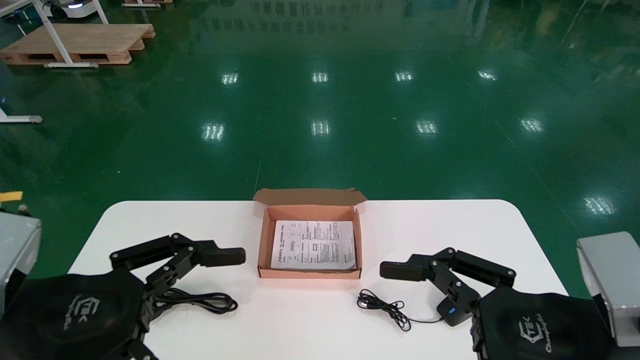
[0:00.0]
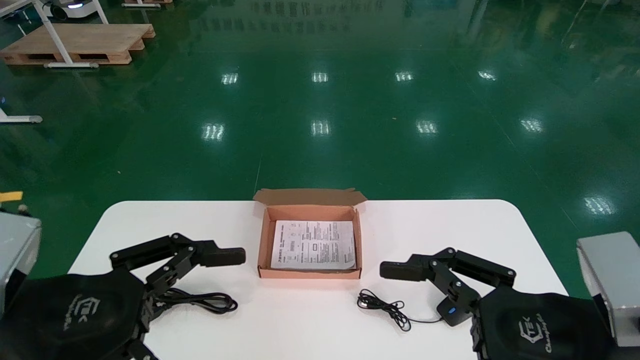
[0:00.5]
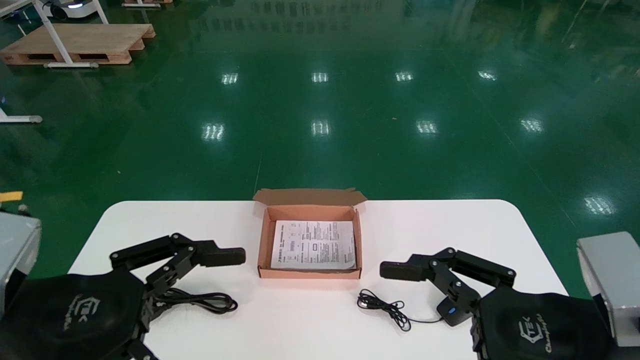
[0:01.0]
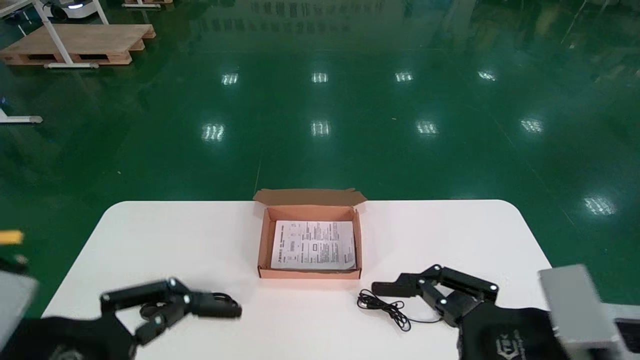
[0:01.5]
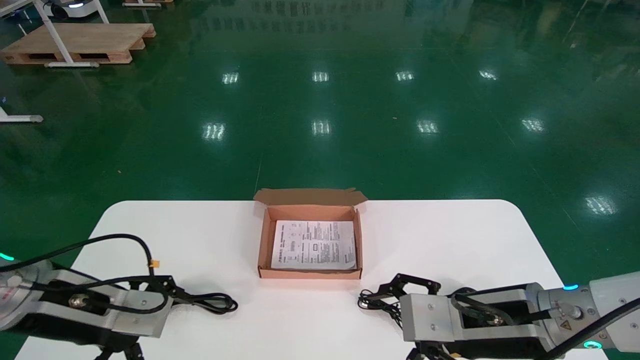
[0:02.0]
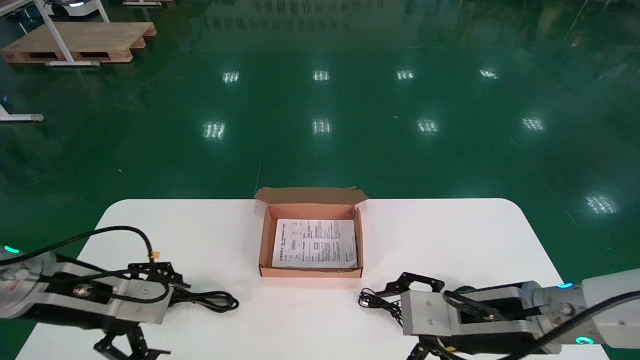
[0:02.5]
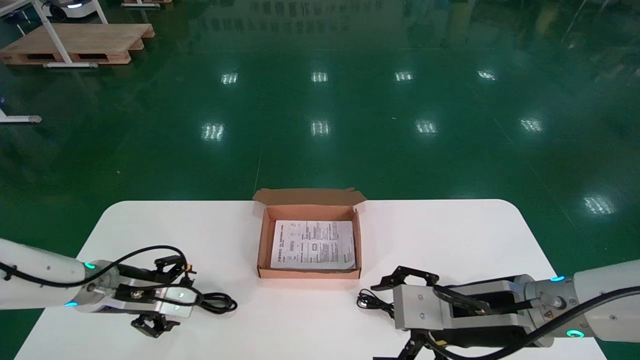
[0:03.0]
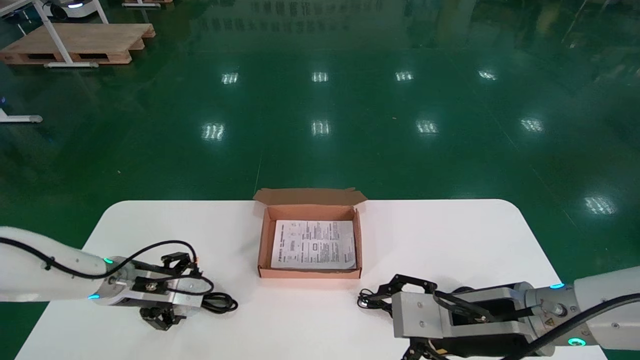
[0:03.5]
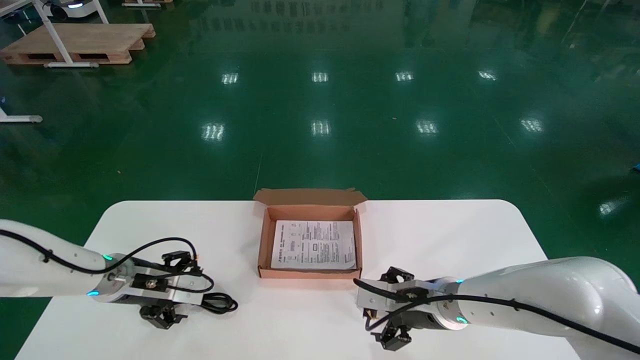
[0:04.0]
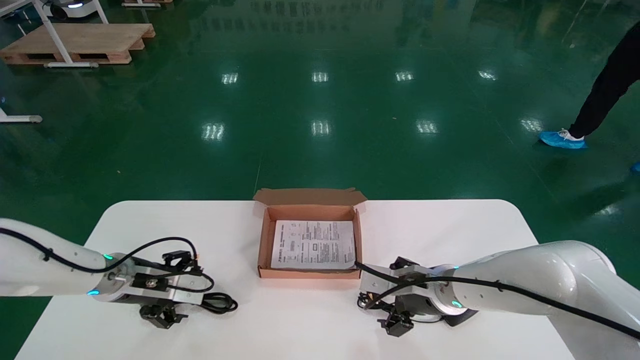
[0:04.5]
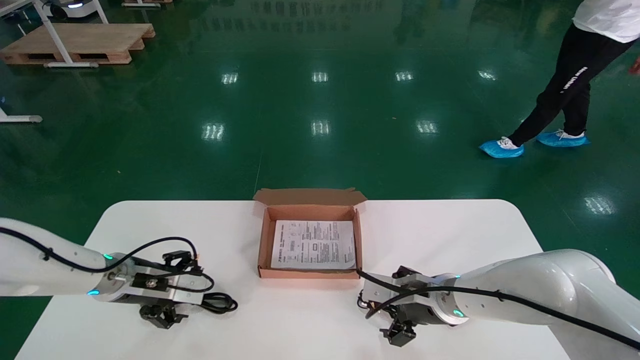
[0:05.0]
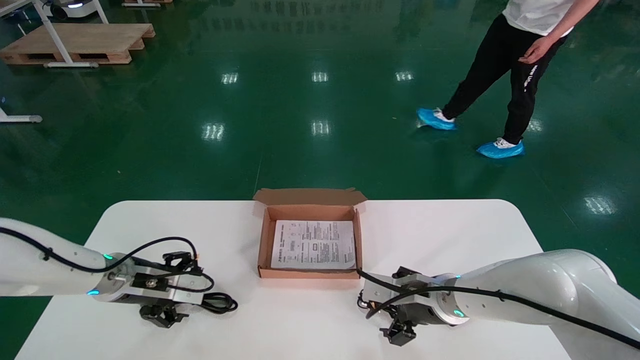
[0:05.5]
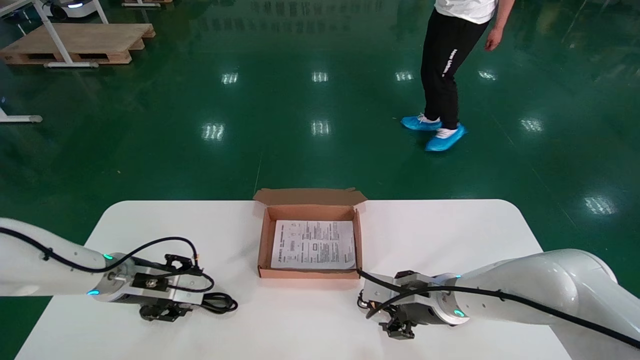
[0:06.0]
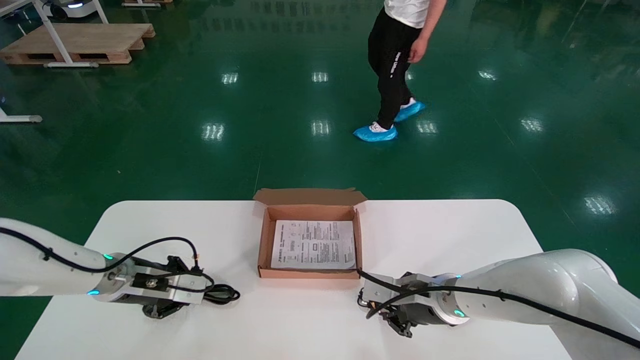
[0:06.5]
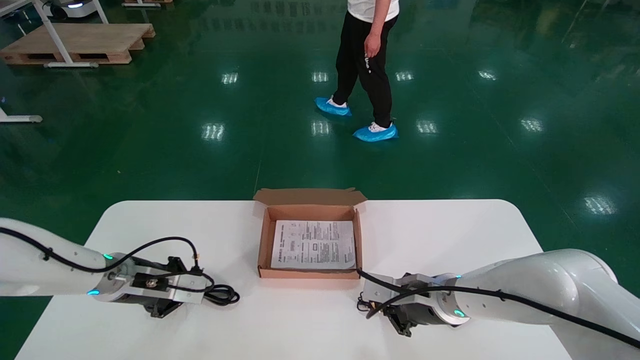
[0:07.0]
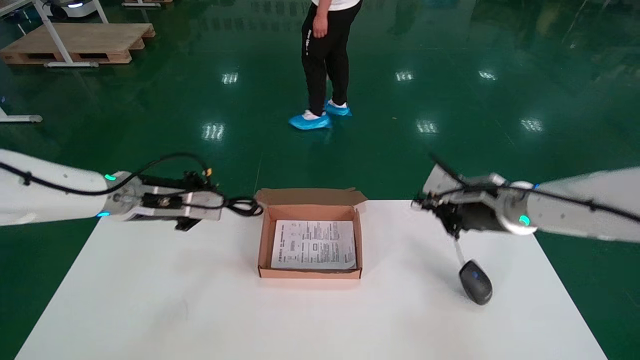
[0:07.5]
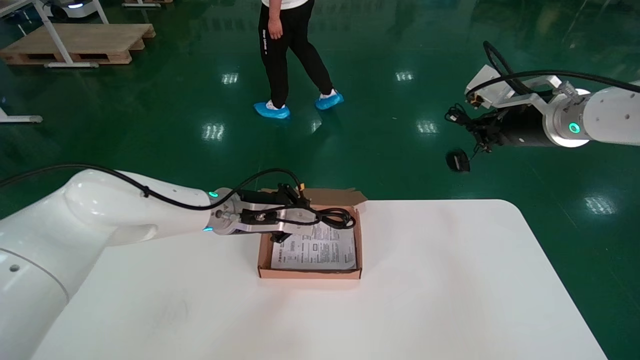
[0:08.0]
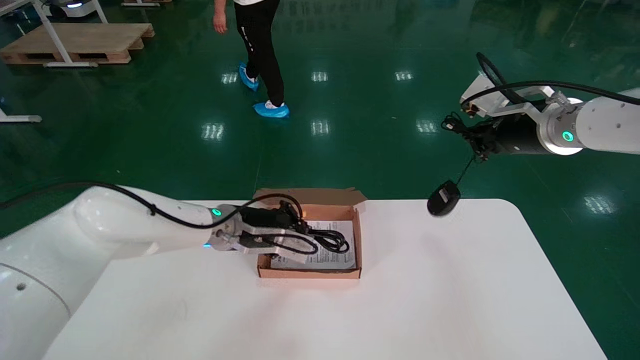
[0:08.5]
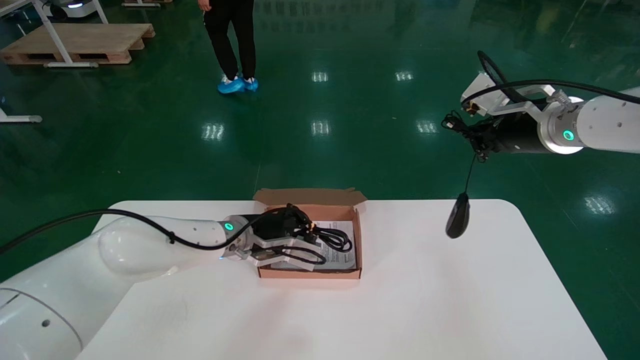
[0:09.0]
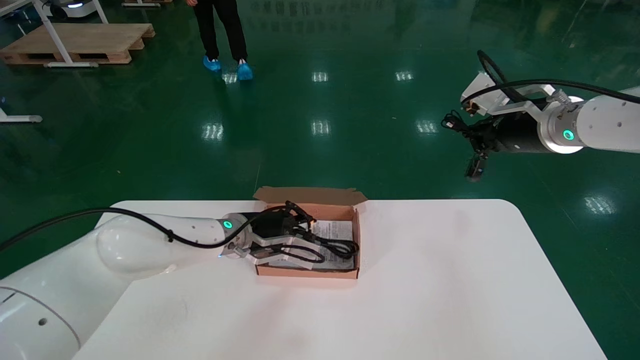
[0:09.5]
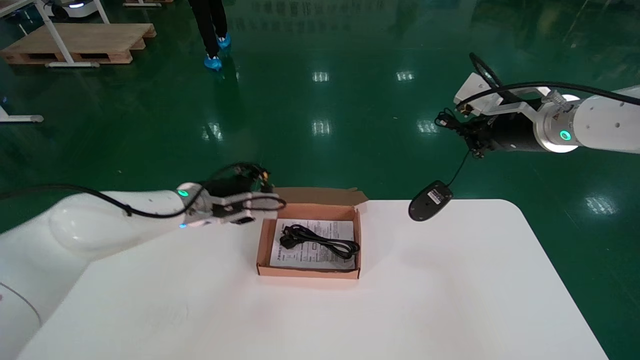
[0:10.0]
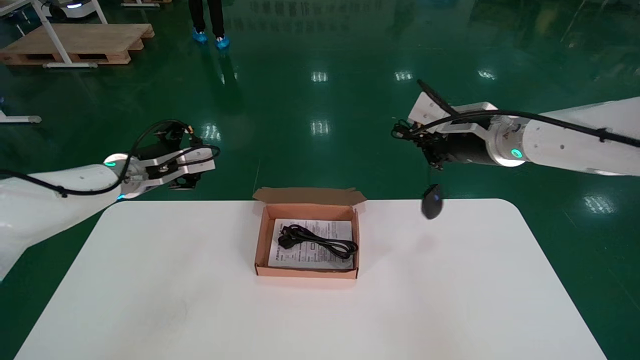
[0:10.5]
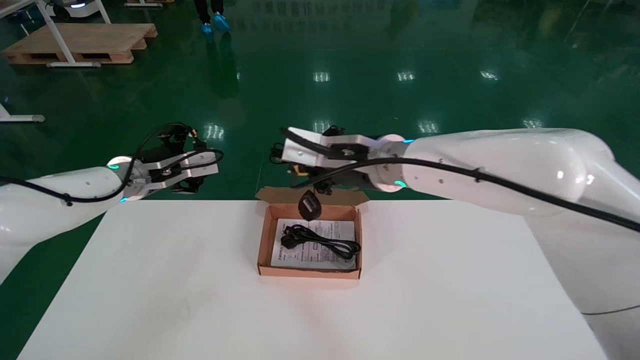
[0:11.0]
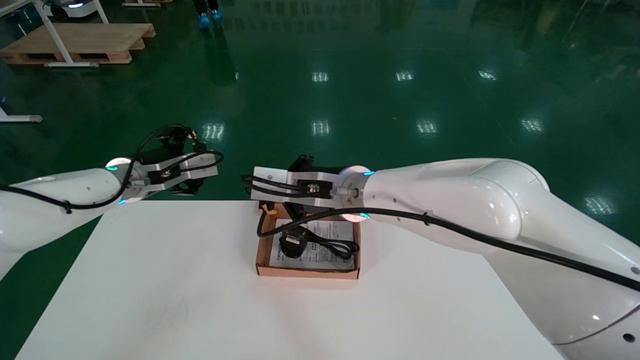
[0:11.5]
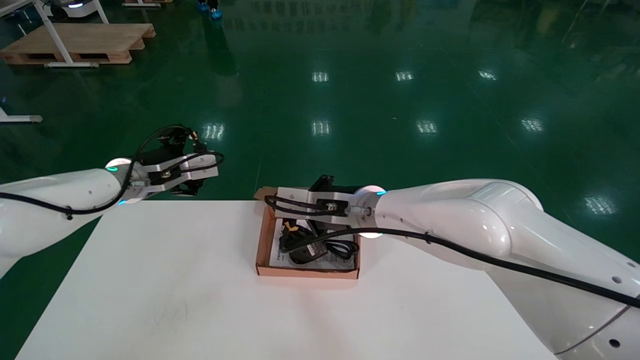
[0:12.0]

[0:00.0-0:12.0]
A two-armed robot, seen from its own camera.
Step, 0:01.0 to 0:07.0: Simultaneously pick up the mouse and power cord from the accessory packaging area.
0:00.0 to 0:02.0: The two grippers go approximately 10 cm forward.
0:02.0 to 0:04.0: The two grippers go approximately 15 cm forward and downward.
0:04.0 to 0:06.0: There are only small adjustments of the grippers.
0:06.0 to 0:08.0: The left gripper is displaced to the right and upward by roughly 20 cm, and closes up. Meanwhile the right gripper goes approximately 30 cm upward and to the right, and closes its fingers.
0:08.0 to 0:10.0: The left gripper goes roughly 5 cm to the left, and opens its fingers.
0:10.0 to 0:12.0: The left gripper goes approximately 10 cm to the left, and opens its fingers; the right gripper moves to the left and downward, roughly 25 cm.

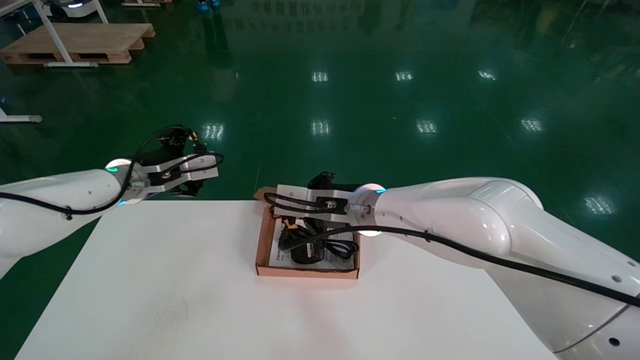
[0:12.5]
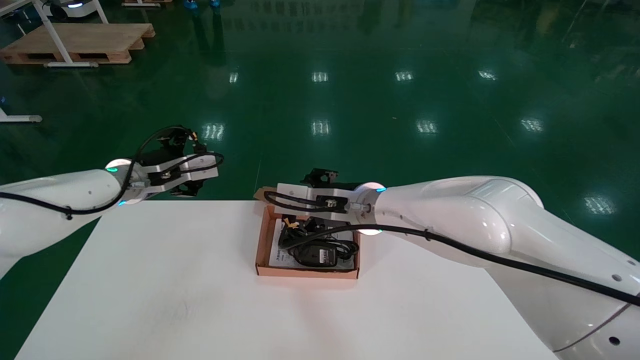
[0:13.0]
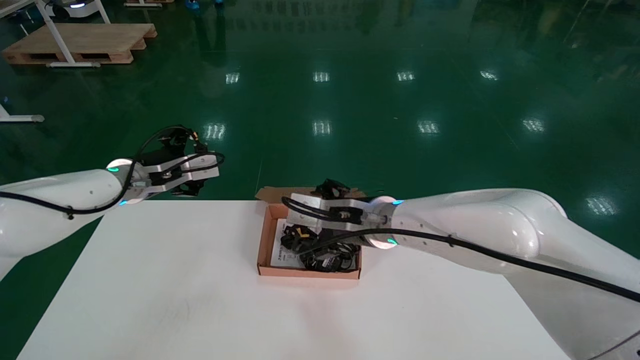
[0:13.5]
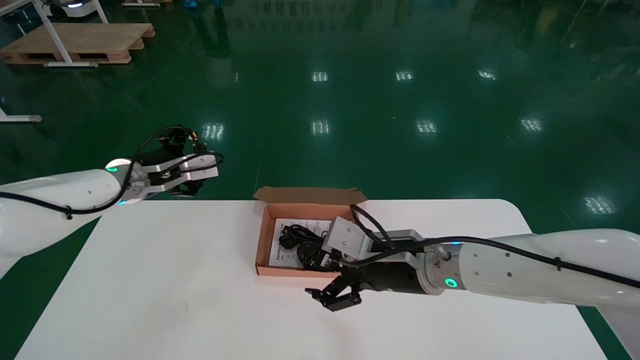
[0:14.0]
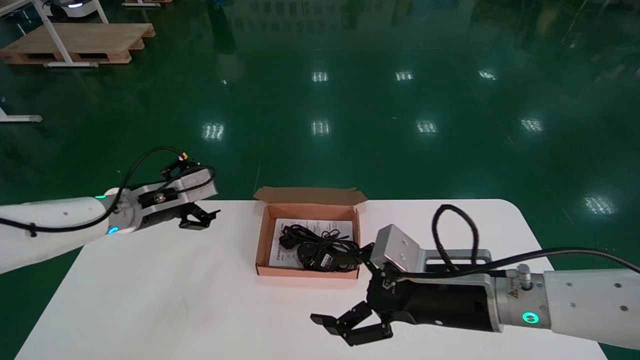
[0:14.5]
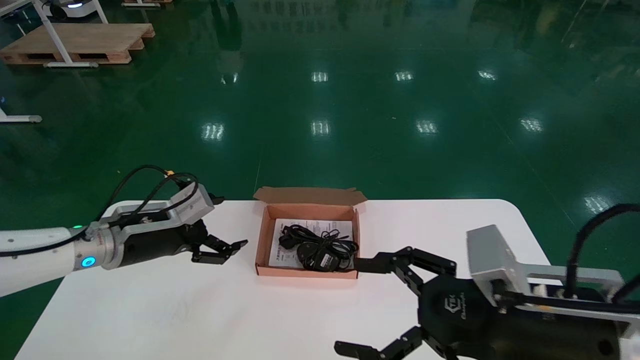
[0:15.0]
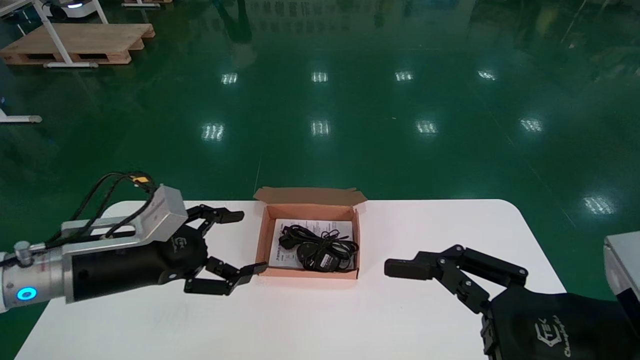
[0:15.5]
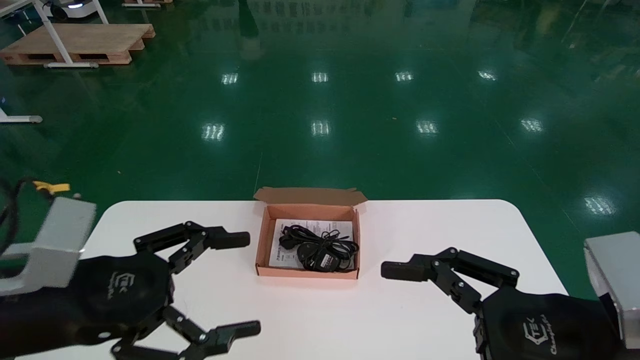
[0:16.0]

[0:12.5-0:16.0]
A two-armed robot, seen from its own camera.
0:12.5 to 0:14.5: The right gripper shifts roughly 20 cm to the right, backward and downward, and opens its fingers.
0:14.5 to 0:16.0: The right gripper travels backward and to the right by approximately 15 cm, while the left gripper moves backward, about 20 cm.
